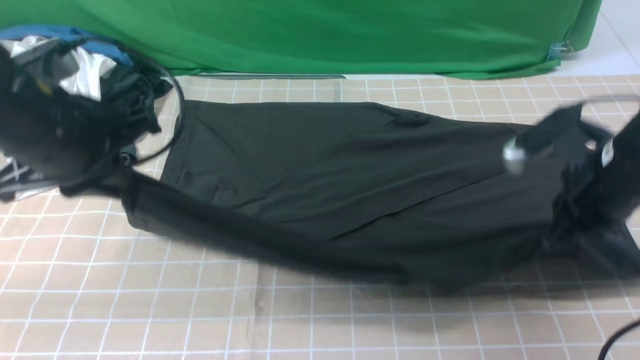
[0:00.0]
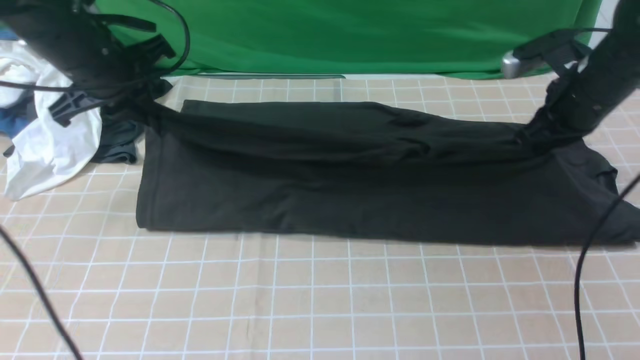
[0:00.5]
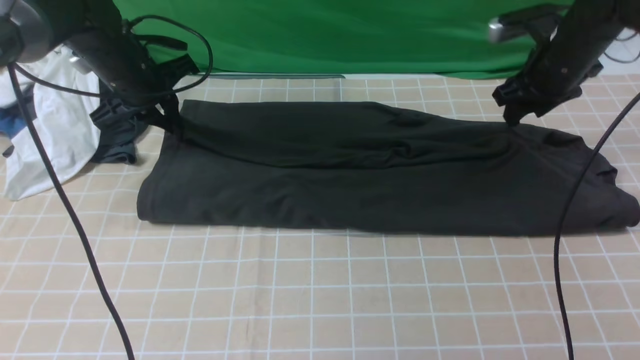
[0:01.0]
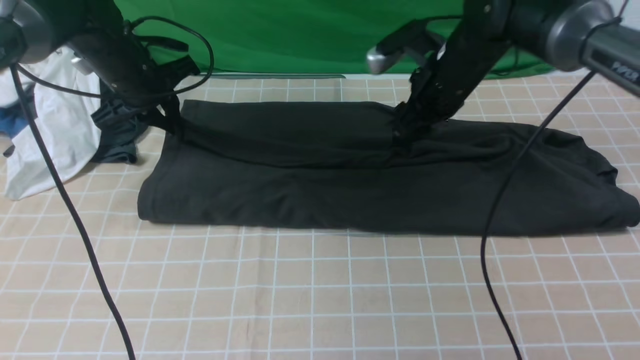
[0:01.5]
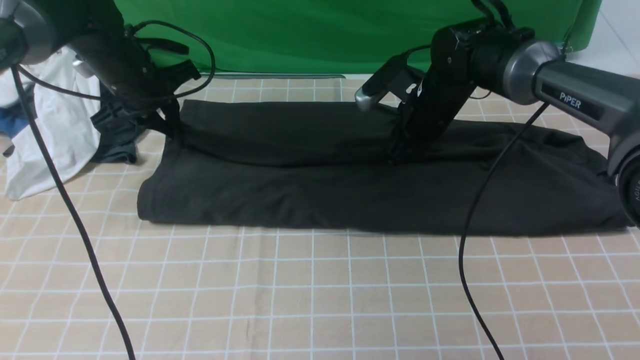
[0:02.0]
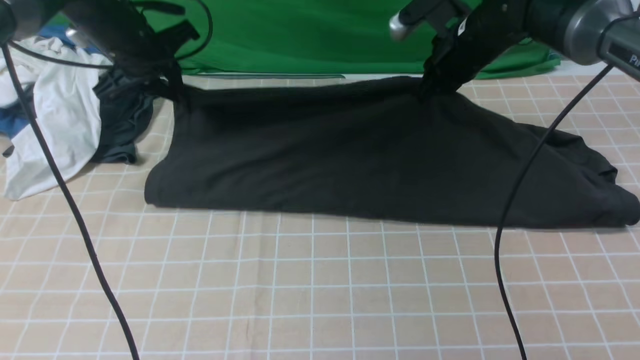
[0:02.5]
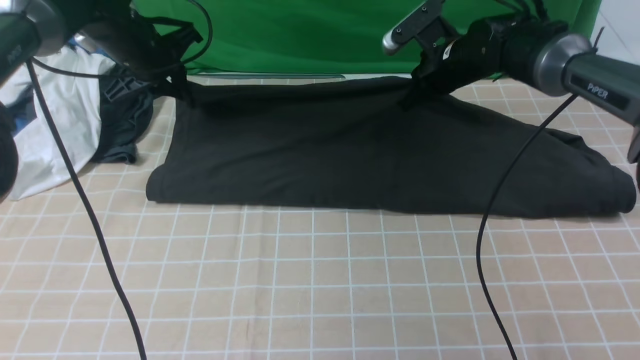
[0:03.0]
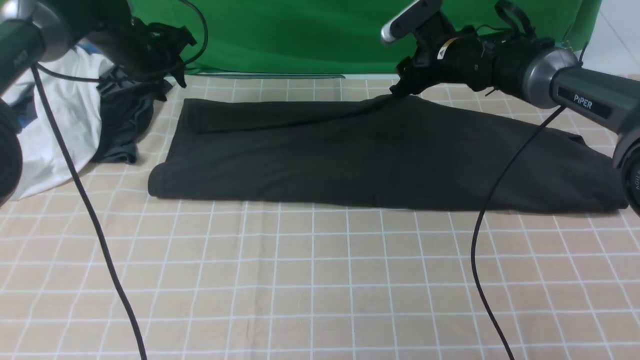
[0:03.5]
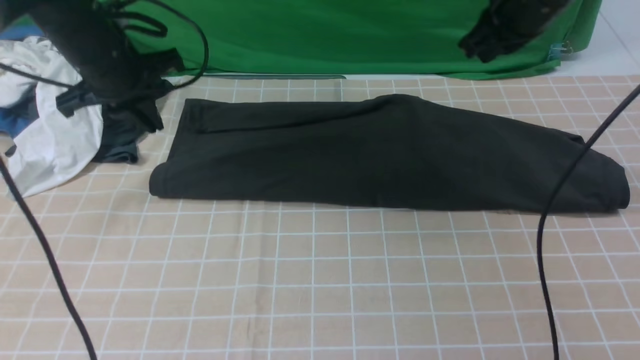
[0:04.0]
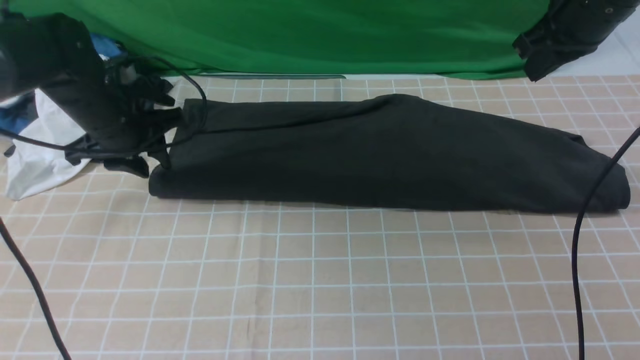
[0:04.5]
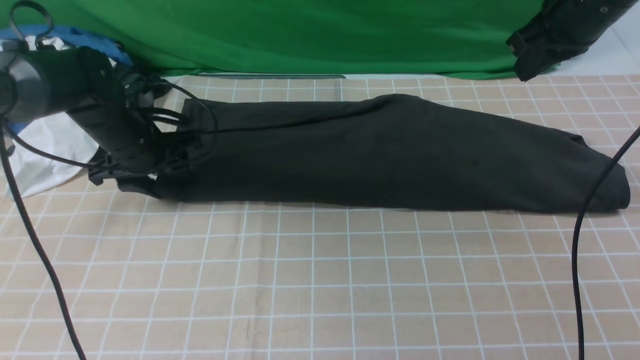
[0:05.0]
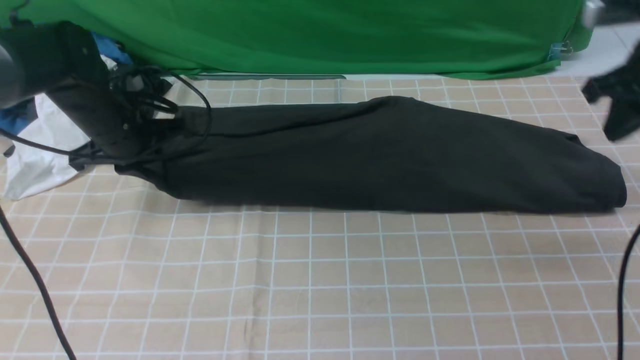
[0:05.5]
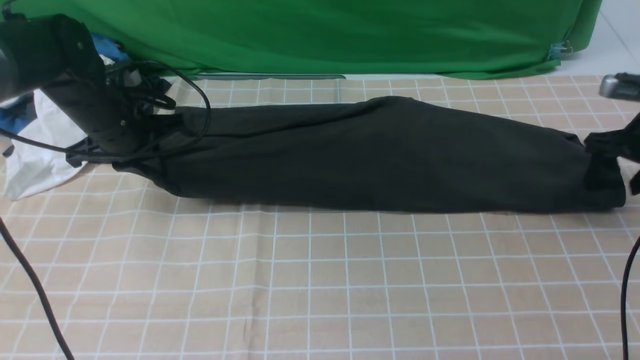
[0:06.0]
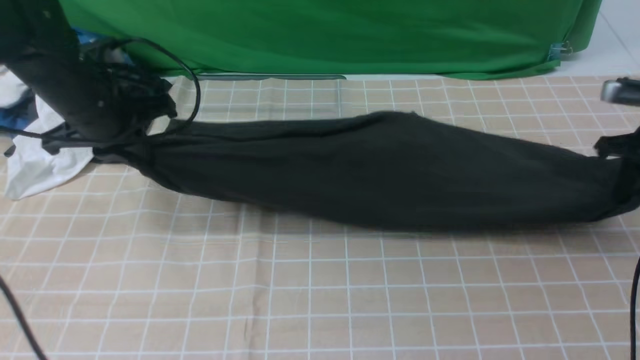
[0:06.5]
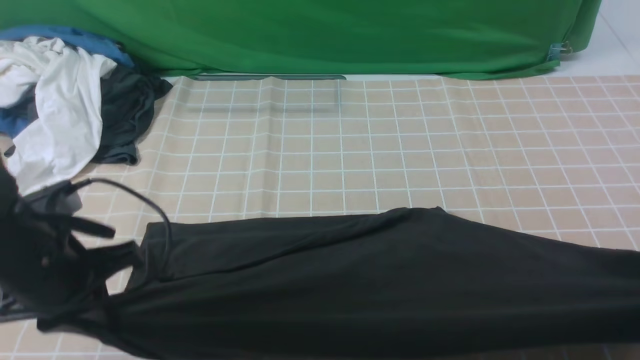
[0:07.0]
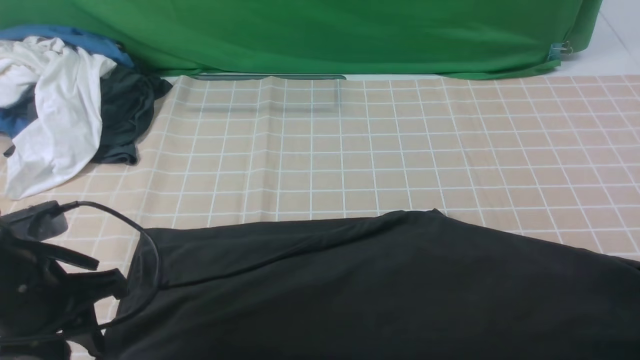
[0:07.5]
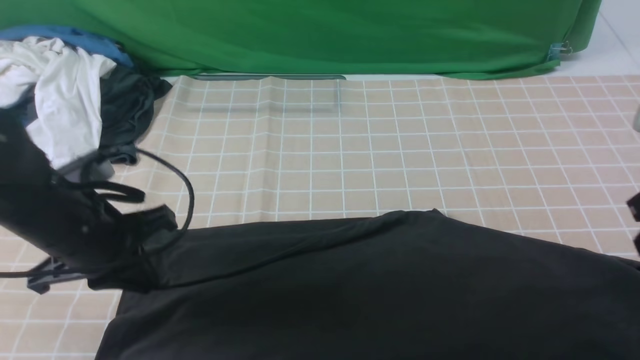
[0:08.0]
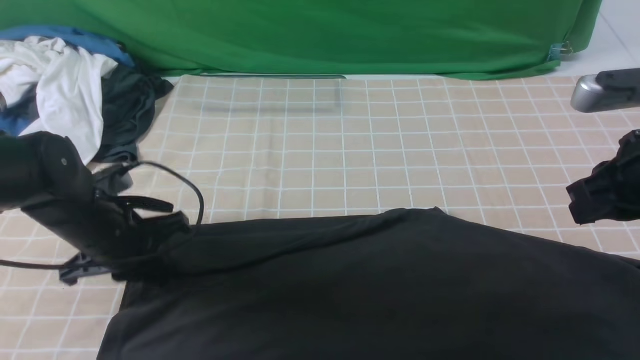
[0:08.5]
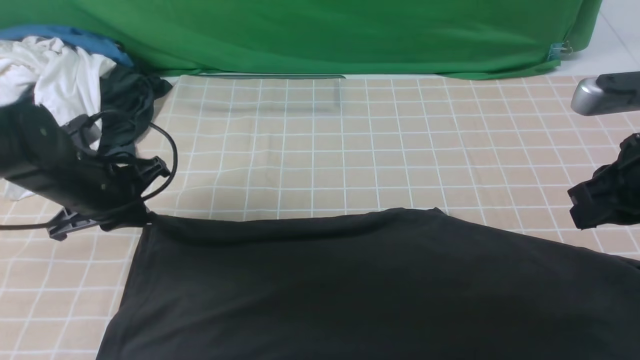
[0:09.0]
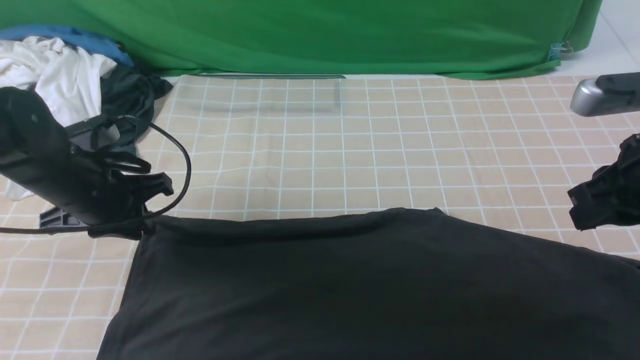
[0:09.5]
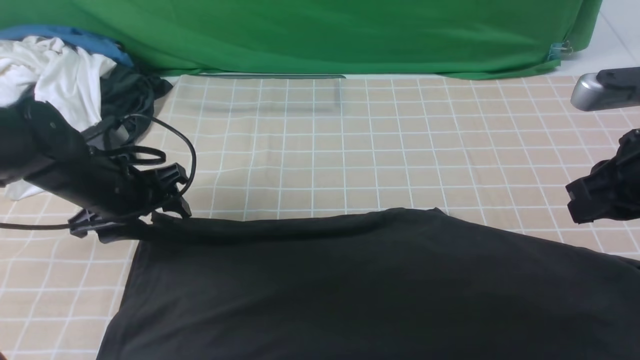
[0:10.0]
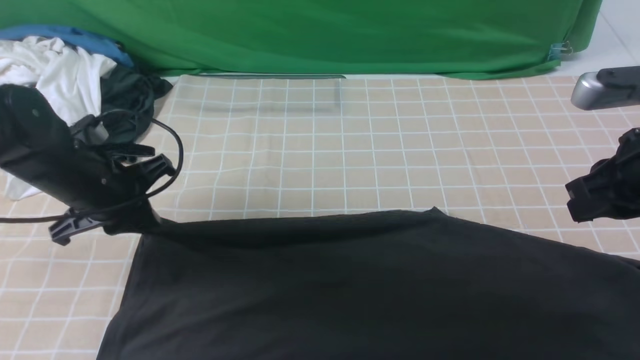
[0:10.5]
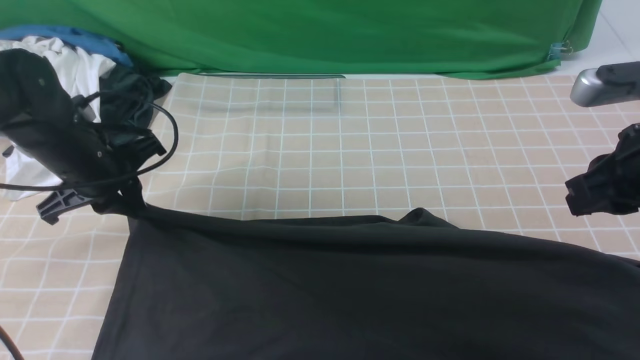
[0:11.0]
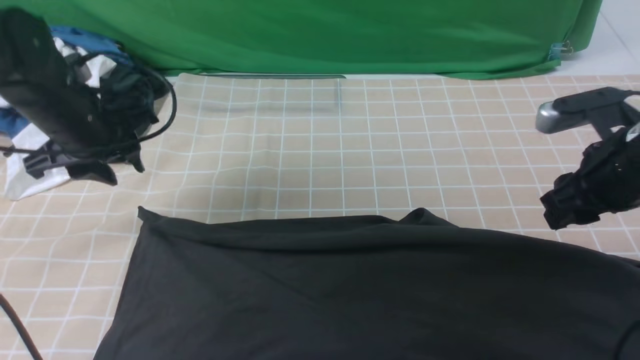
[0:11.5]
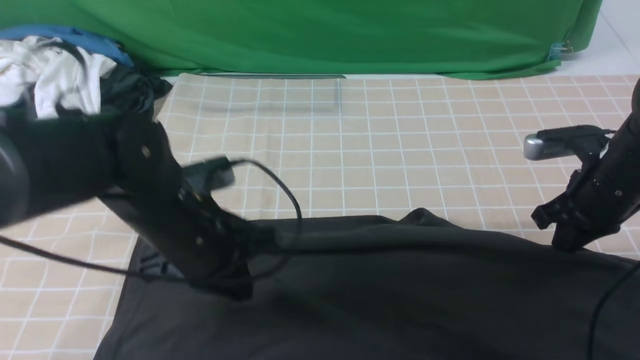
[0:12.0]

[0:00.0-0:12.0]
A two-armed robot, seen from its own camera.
Step, 0:00.0 to 0:03.0: use both arms to drag the lower edge of the fabric forward and fold it over the upper edge.
0:00.0 to 0:02.0: The left gripper goes about 20 cm forward and downward. The right gripper shifts some 20 cm forward and to the left, and opens.
0:02.0 to 0:04.0: The left gripper shifts by some 5 cm, and opens, then closes once more; the right gripper travels upward and to the right by some 15 cm, and closes.
0:04.0 to 0:06.0: The right gripper is displaced to the right and downward by roughly 20 cm, and opens up. Meanwhile the left gripper goes some 5 cm downward, and opens and closes again.
0:06.0 to 0:08.0: The left gripper shifts some 15 cm backward, and opens and closes again; the right gripper moves backward, upward and to the left, about 20 cm, and closes.
0:08.0 to 0:10.0: The left gripper heads forward, covering roughly 5 cm, and opens its fingers. The right gripper changes place by about 5 cm.
0:10.0 to 0:12.0: The right gripper heads downward and forward, covering some 10 cm, and opens and closes again, while the left gripper shifts roughly 15 cm to the right and backward, and closes its fingers.

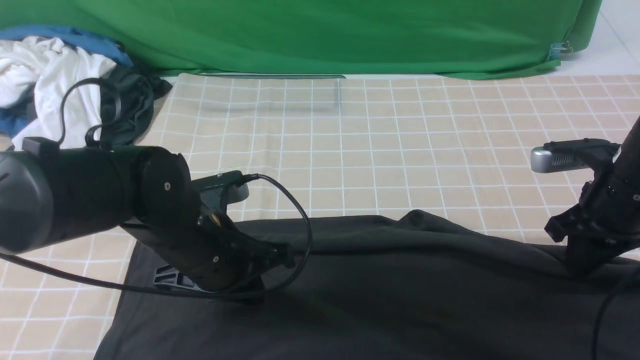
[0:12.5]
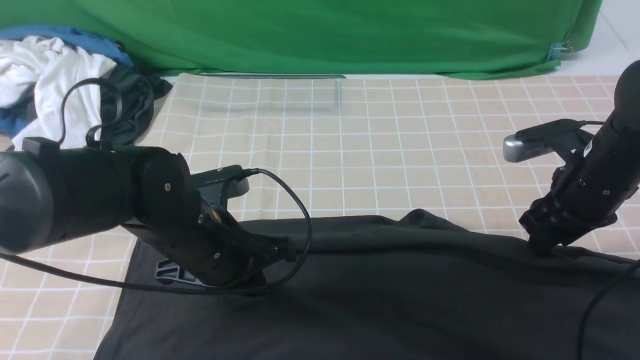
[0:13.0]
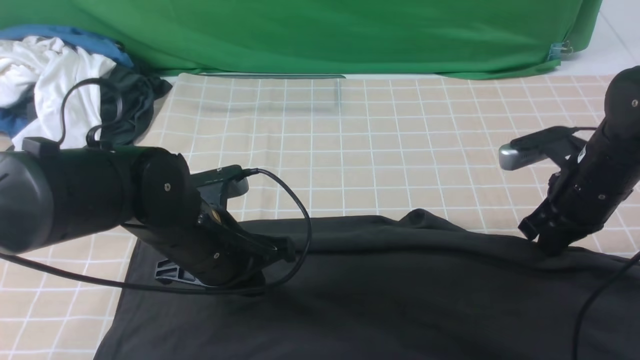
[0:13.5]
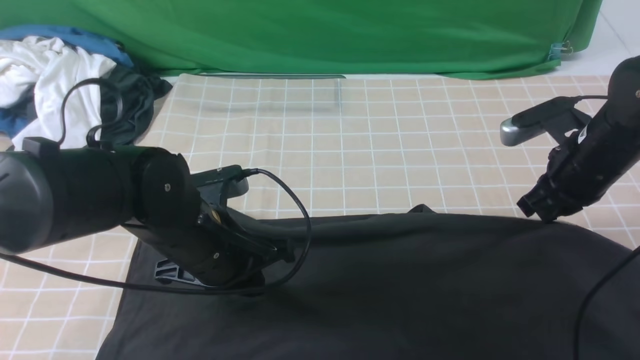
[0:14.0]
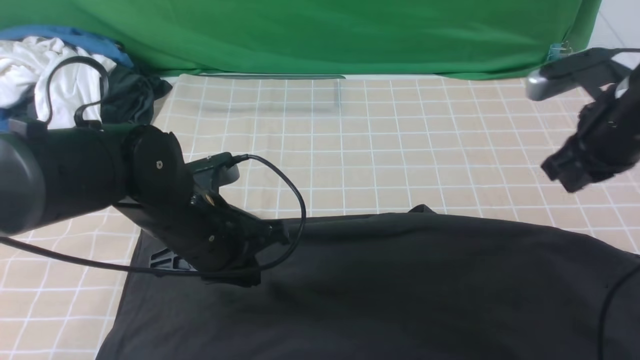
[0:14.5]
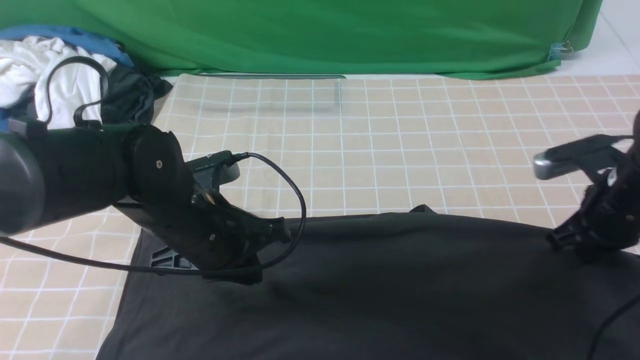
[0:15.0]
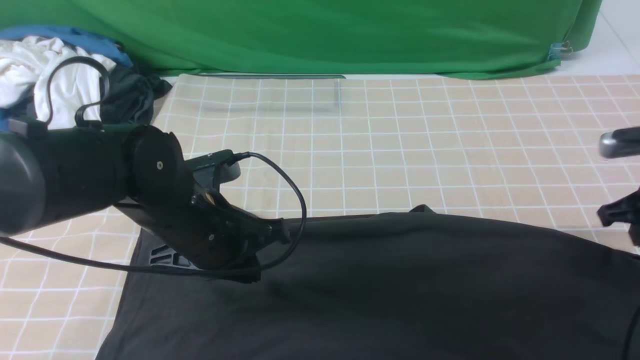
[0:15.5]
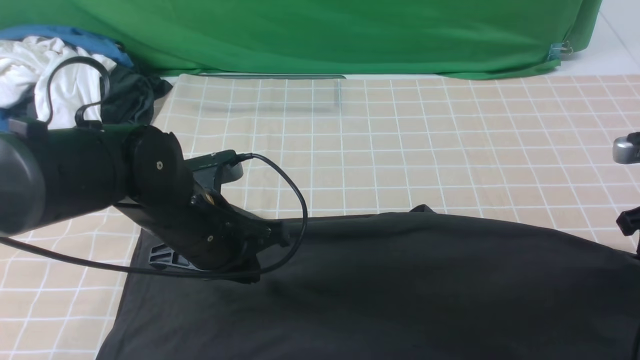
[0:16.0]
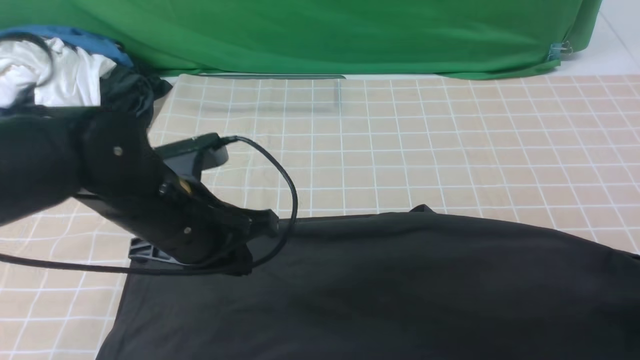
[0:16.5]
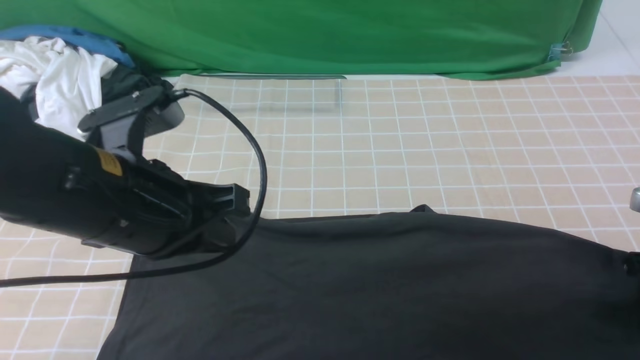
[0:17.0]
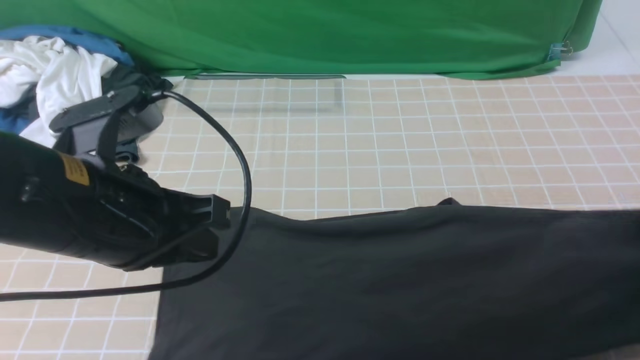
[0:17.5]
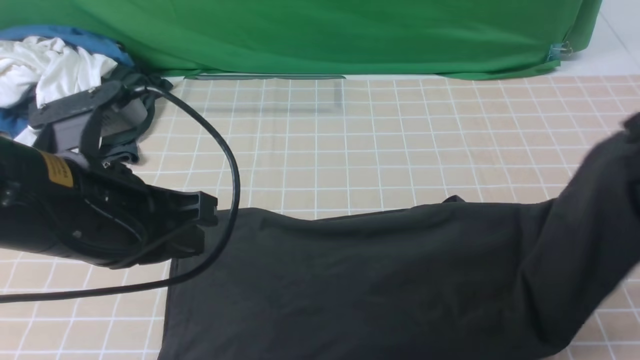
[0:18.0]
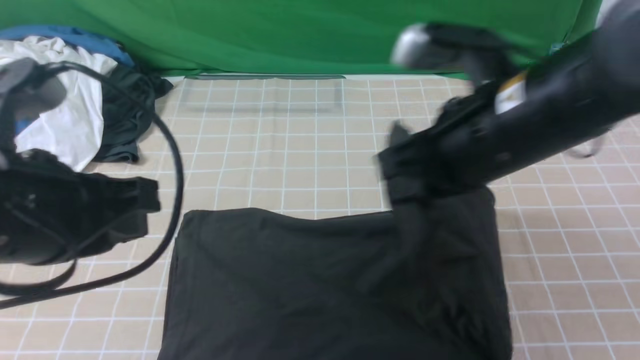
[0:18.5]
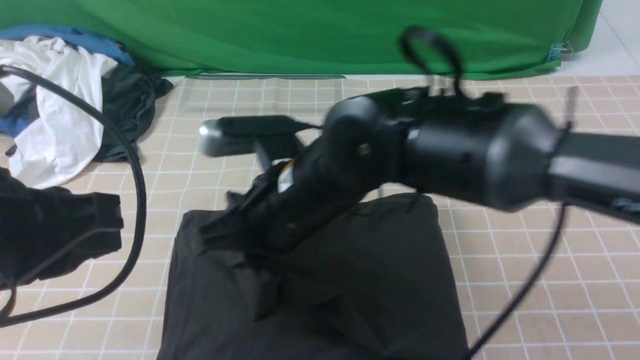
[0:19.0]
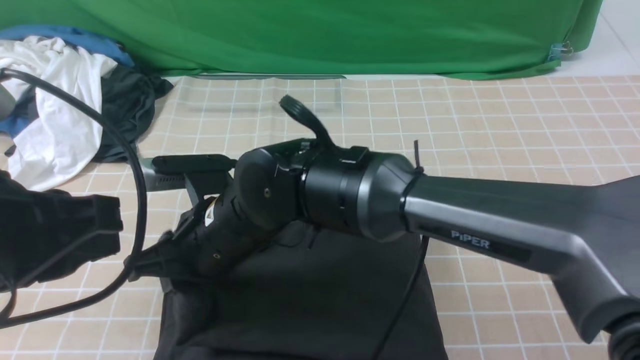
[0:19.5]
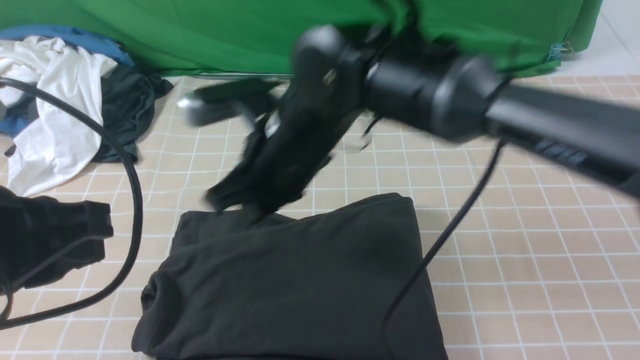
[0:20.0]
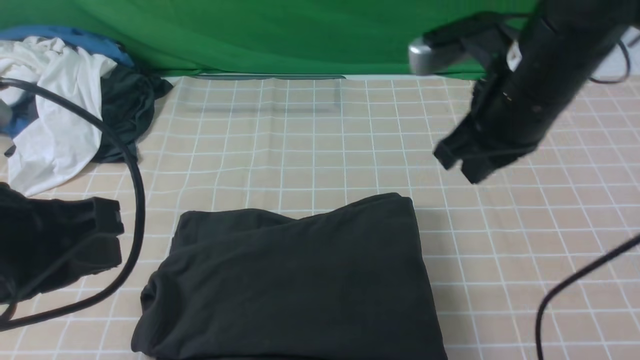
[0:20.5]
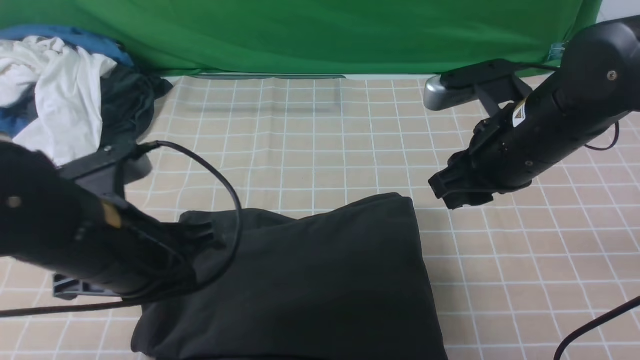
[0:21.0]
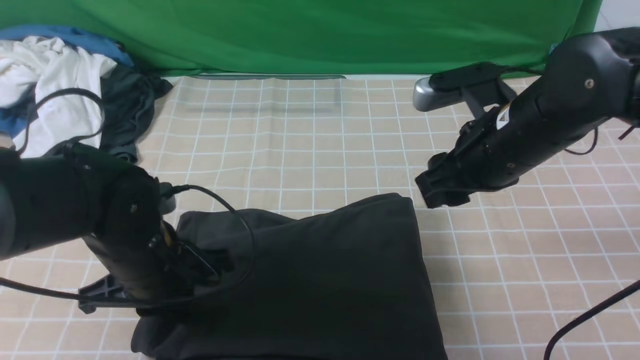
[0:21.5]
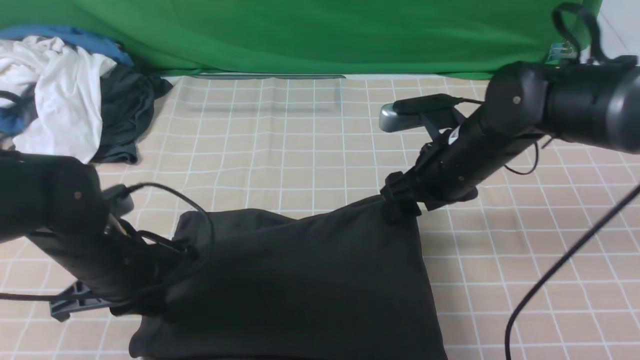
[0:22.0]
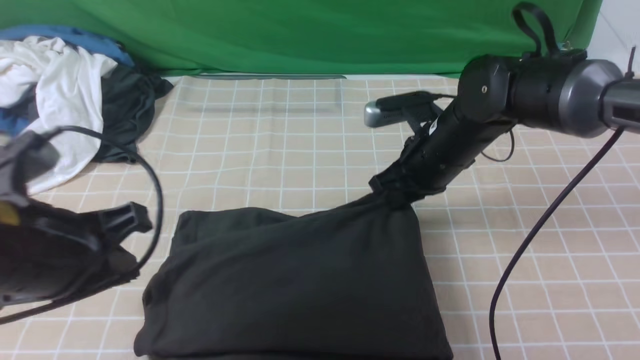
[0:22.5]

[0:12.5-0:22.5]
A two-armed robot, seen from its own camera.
Step, 0:12.5 to 0:17.0: use the right arm to clamp the right edge of the fabric.
Step, 0:17.5 to 0:19.5: use the right arm to drag the right edge of the fabric to the left and folds it over the left edge.
0:12.5 to 0:14.5: The right gripper shifts by roughly 5 cm.
0:14.5 to 0:16.5: The right gripper shifts some 15 cm to the right, downward and backward, and opens up.
0:16.5 to 0:18.5: The left gripper travels upward, backward and to the left by about 15 cm; the right gripper goes roughly 30 cm to the left and upward, and closes its fingers.
0:18.5 to 0:20.5: The right gripper goes to the left and returns, some 20 cm each way.
0:20.5 to 0:22.5: The left gripper moves about 15 cm downward and comes back; the right gripper moves downward and forward, some 15 cm, and opens, then closes again.
